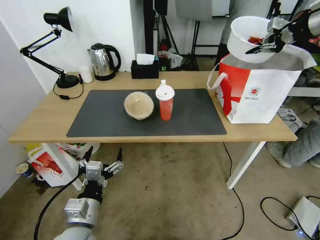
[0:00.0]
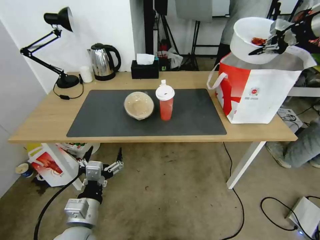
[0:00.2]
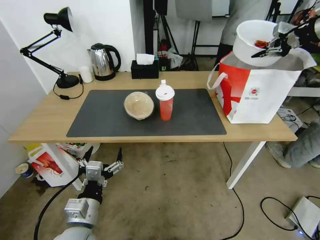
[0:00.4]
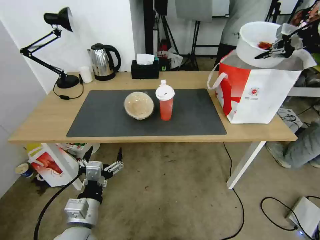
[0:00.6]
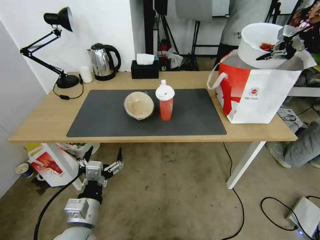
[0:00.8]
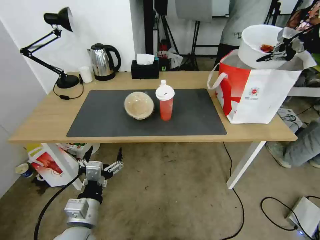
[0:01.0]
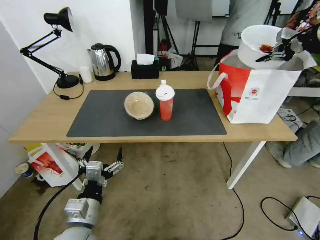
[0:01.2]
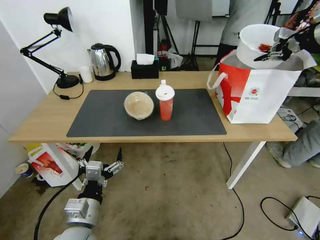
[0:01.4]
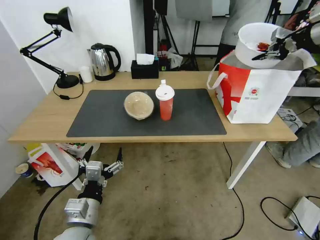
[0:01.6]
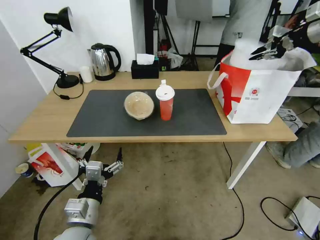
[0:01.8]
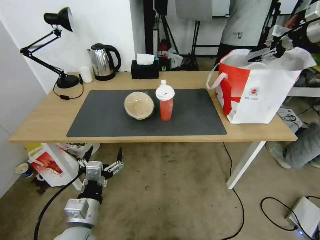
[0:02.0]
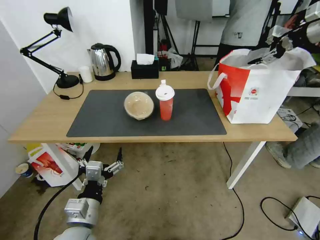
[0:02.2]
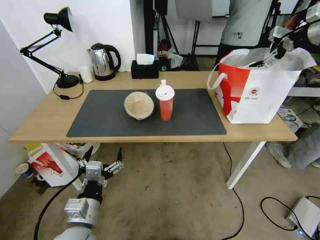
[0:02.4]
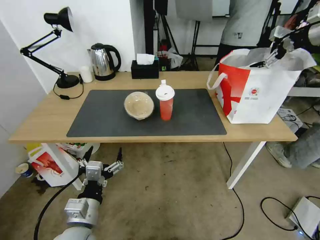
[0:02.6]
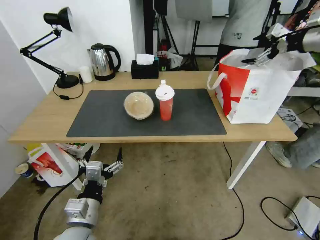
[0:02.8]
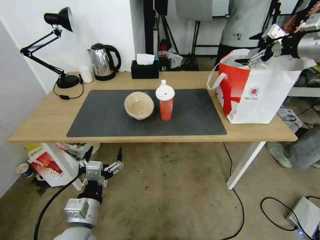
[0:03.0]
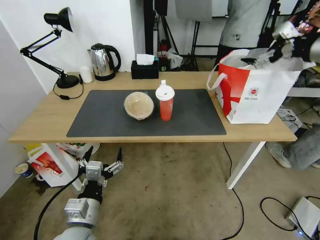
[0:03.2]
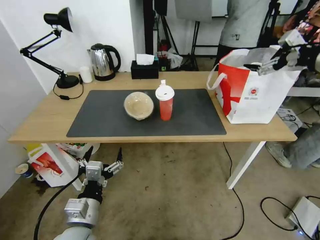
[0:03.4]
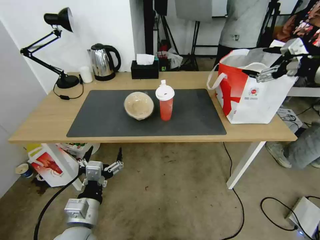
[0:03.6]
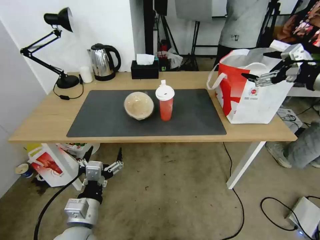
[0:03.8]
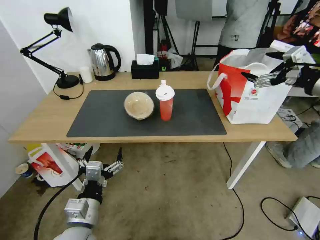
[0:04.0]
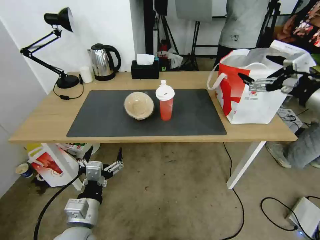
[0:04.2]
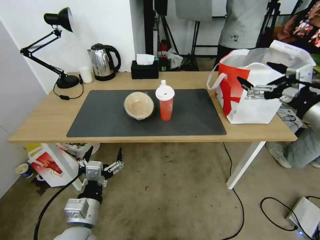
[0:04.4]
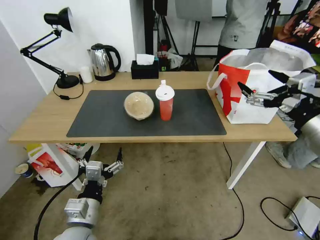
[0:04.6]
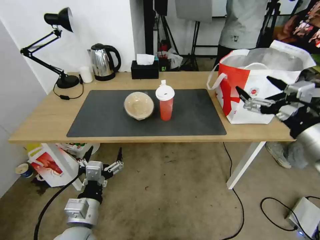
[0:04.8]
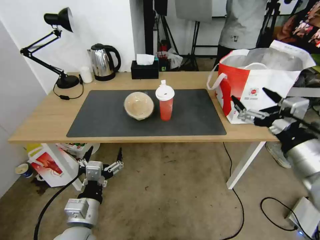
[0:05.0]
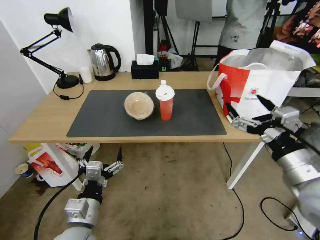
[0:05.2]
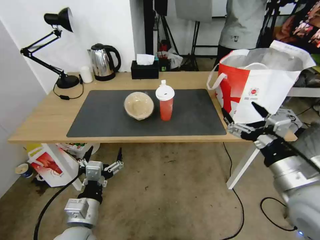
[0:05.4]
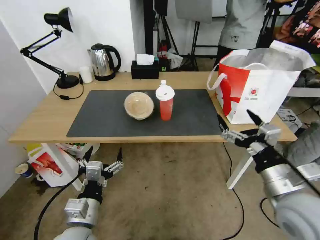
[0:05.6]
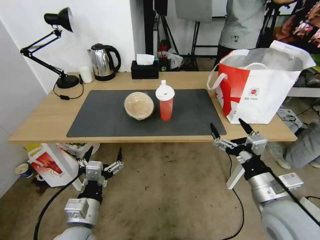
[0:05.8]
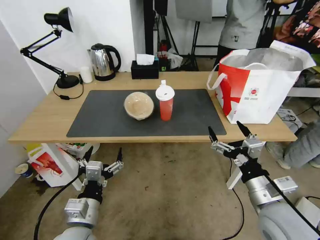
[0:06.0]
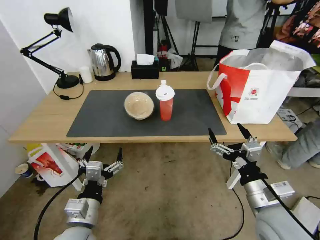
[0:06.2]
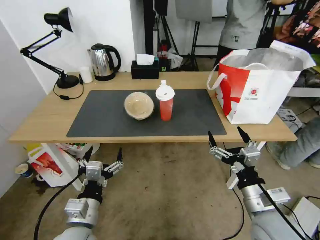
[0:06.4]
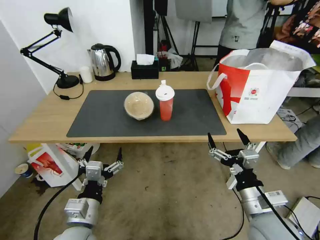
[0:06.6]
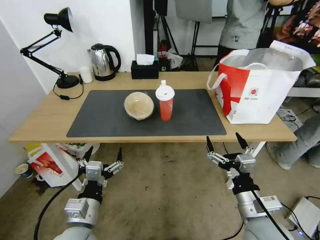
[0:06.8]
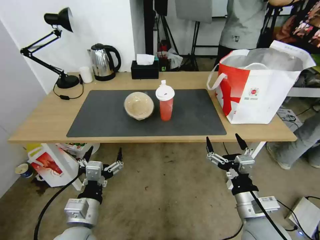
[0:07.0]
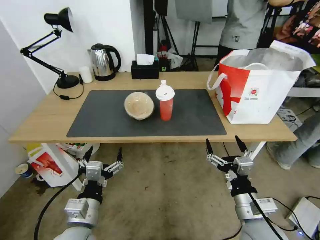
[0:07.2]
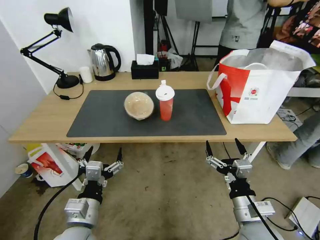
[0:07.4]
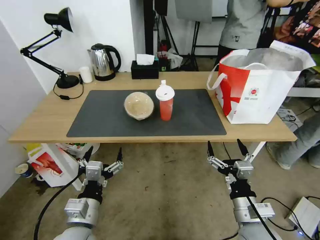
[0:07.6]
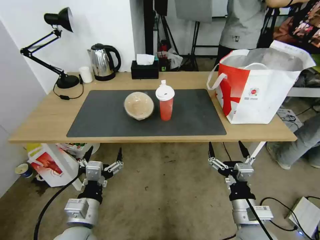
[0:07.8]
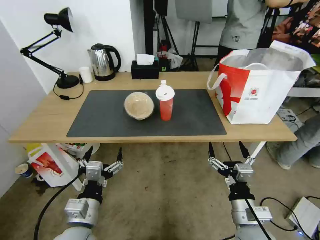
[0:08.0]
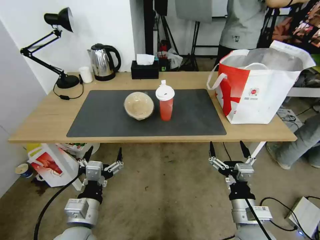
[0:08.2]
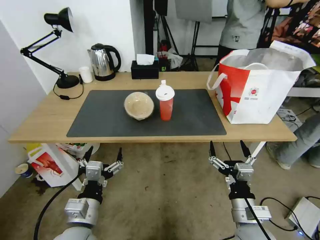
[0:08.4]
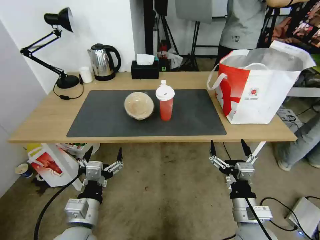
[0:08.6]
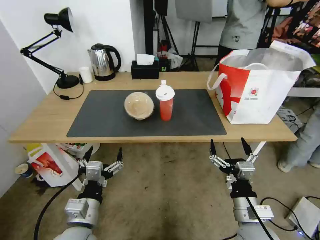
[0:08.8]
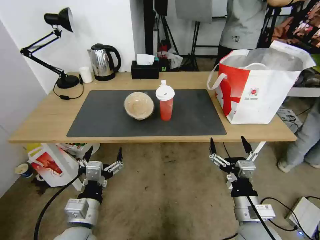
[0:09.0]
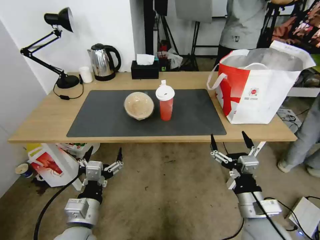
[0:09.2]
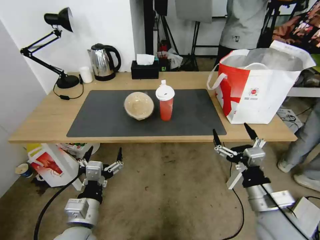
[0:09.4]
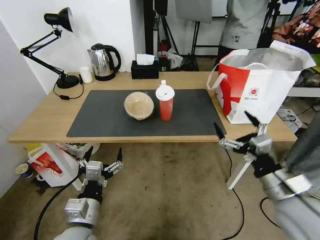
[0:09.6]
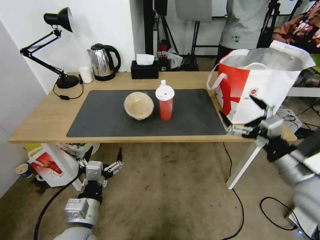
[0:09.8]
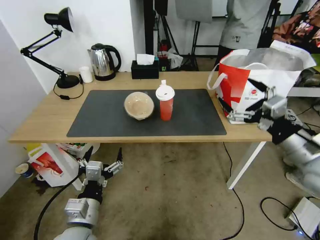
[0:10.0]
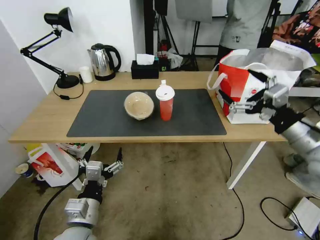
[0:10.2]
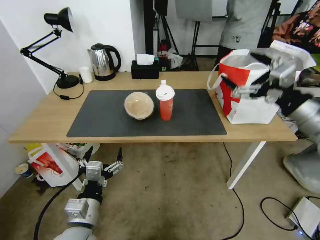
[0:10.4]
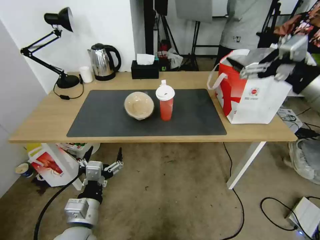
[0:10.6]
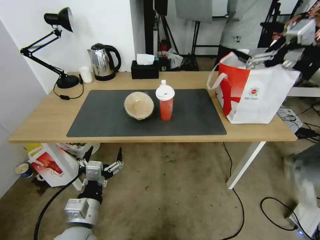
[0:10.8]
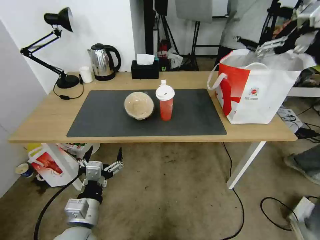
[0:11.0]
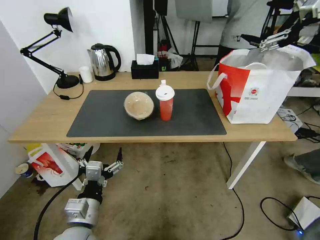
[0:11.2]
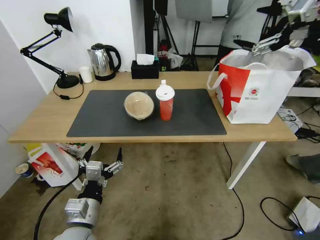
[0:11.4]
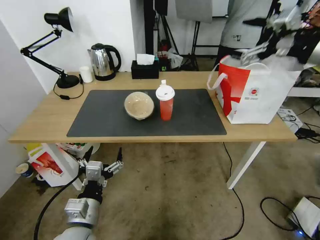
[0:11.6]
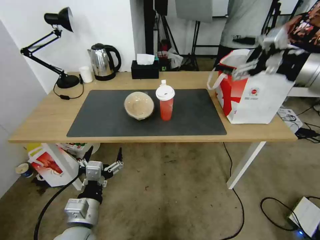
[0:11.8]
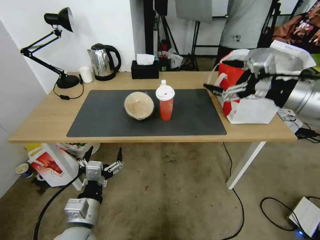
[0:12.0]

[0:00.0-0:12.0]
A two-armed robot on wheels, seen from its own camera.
Task of the whole recording: Pick up the trash from the table and place it into the takeout bag.
0:00.0 to 0:01.6: The grippers move only a little.
0:01.6 to 0:03.0: The right gripper shifts roughly 10 cm backward and to the left, and opens its fingers.
0:03.0 to 0:04.4: The right gripper travels backward and downward by approximately 25 cm.
0:04.4 to 0:06.0: The right gripper shifts about 25 cm downward, to the left and backward.
0:06.0 to 0:07.6: The right gripper goes approximately 5 cm downward.
0:07.6 to 0:09.0: Both grippers stay about where they are.
0:09.0 to 0:10.4: The right gripper shifts about 30 cm upward, to the right and forward.
0:10.4 to 0:12.0: The right gripper travels upward by approximately 5 cm.

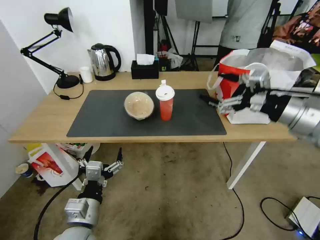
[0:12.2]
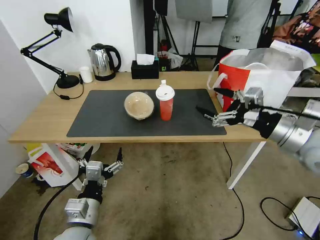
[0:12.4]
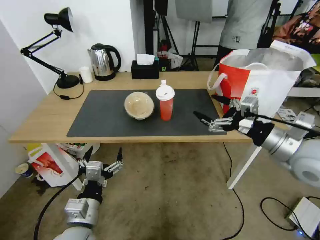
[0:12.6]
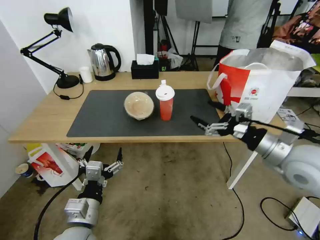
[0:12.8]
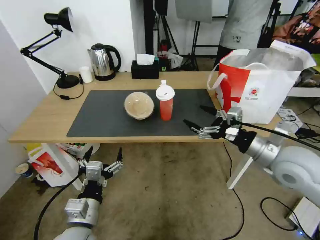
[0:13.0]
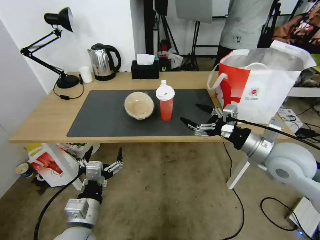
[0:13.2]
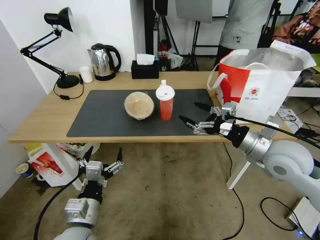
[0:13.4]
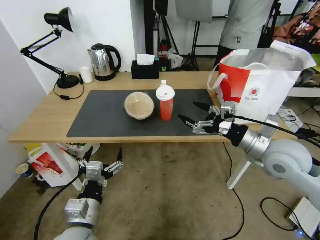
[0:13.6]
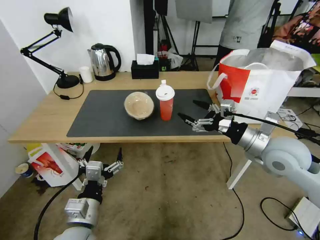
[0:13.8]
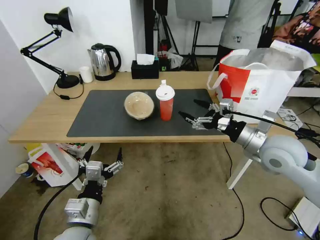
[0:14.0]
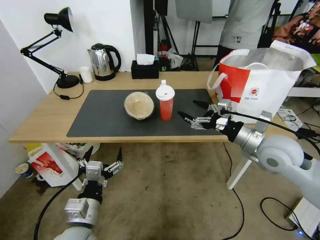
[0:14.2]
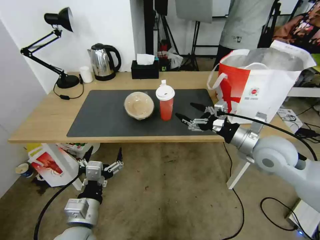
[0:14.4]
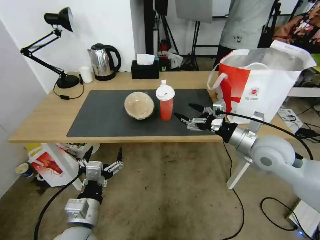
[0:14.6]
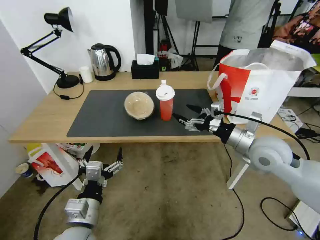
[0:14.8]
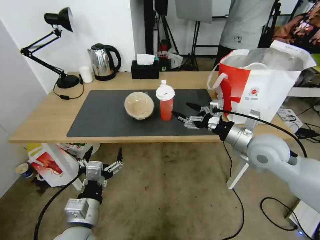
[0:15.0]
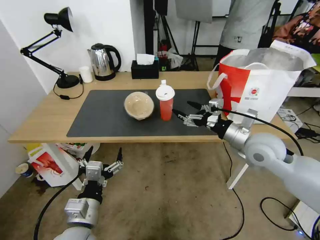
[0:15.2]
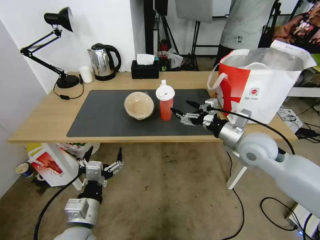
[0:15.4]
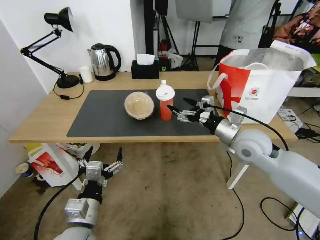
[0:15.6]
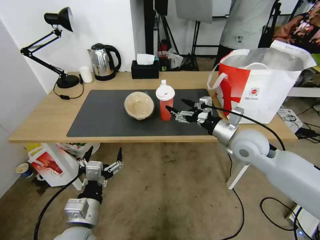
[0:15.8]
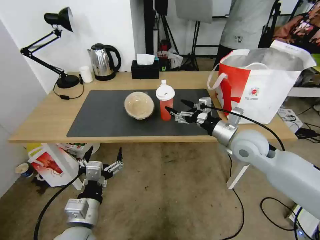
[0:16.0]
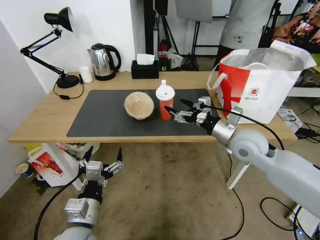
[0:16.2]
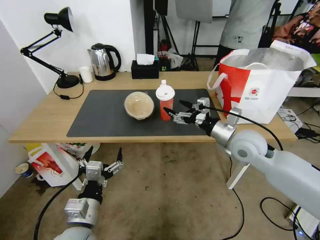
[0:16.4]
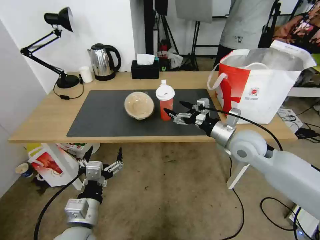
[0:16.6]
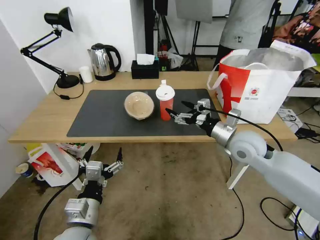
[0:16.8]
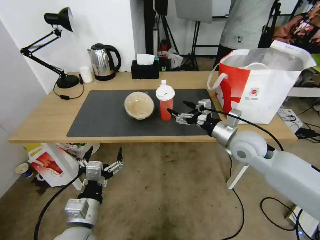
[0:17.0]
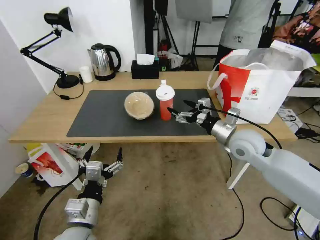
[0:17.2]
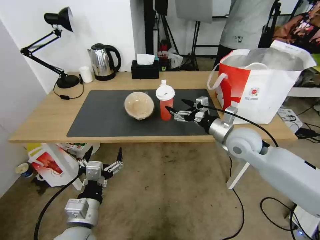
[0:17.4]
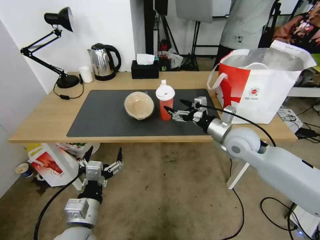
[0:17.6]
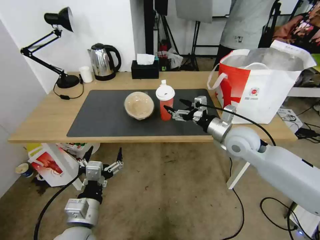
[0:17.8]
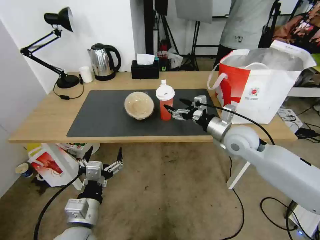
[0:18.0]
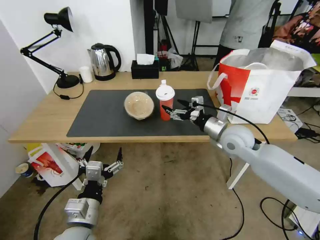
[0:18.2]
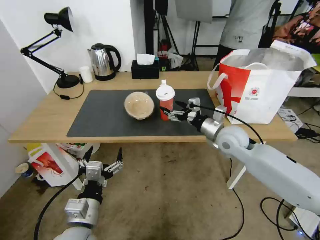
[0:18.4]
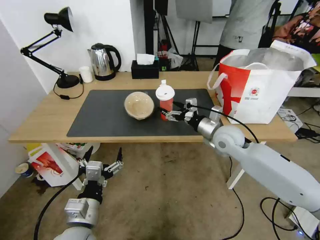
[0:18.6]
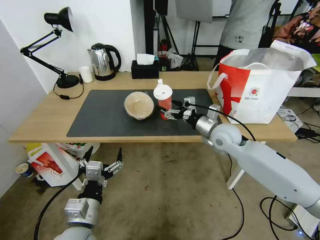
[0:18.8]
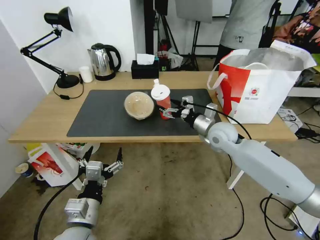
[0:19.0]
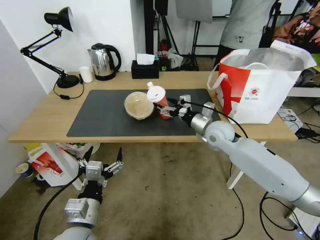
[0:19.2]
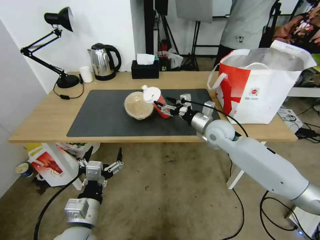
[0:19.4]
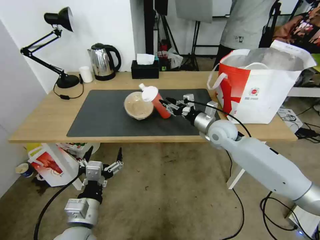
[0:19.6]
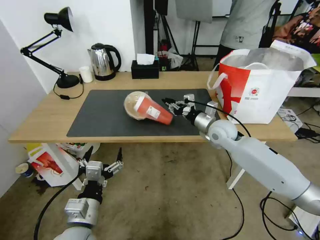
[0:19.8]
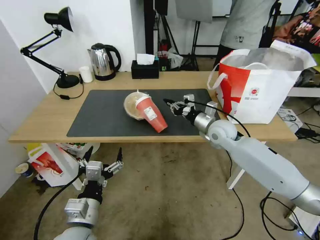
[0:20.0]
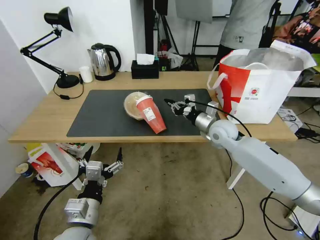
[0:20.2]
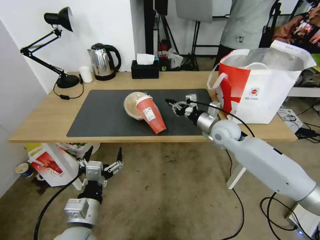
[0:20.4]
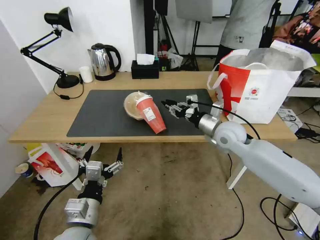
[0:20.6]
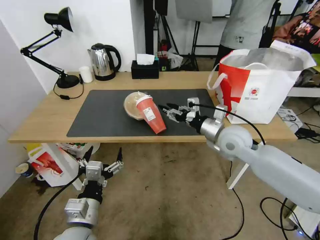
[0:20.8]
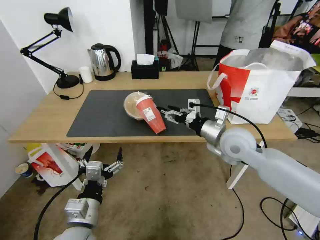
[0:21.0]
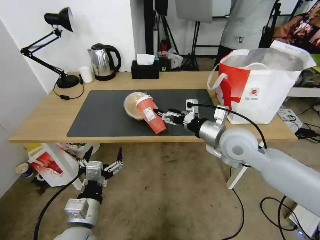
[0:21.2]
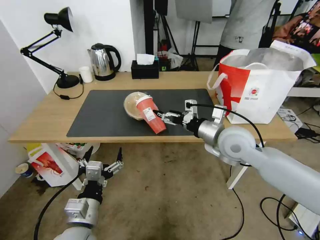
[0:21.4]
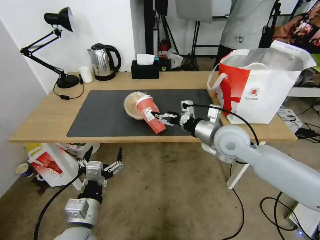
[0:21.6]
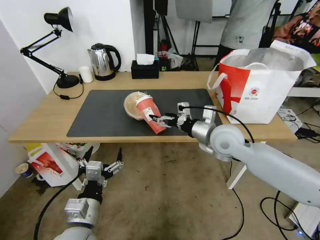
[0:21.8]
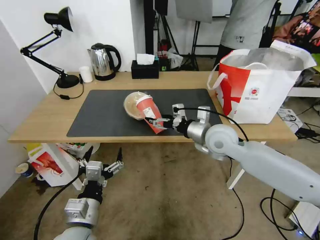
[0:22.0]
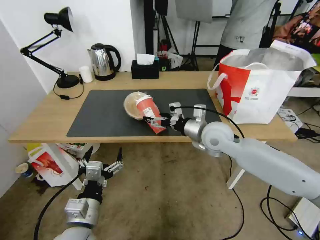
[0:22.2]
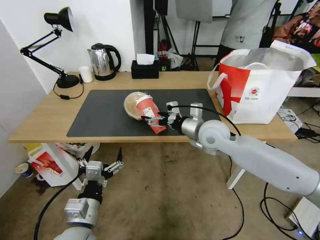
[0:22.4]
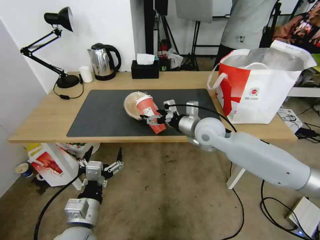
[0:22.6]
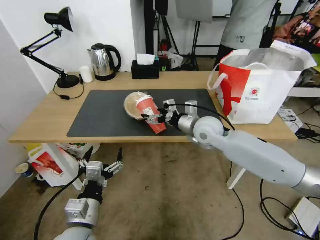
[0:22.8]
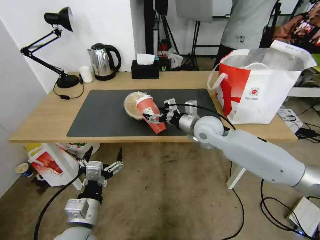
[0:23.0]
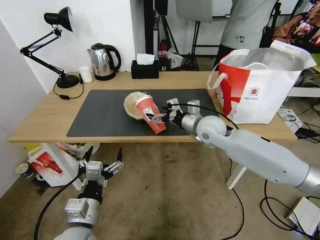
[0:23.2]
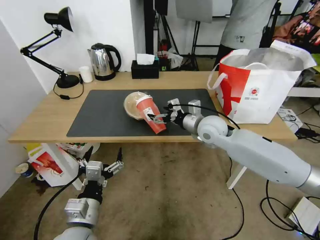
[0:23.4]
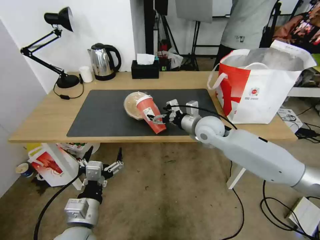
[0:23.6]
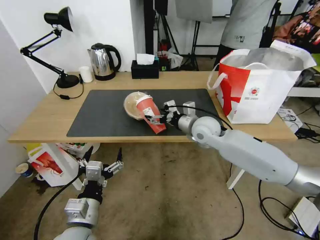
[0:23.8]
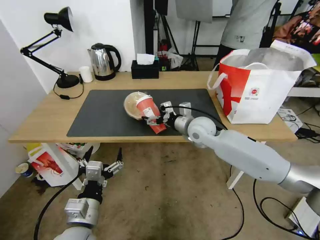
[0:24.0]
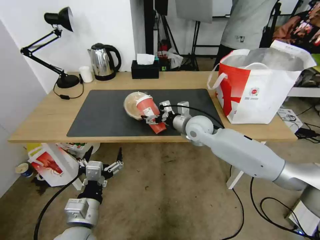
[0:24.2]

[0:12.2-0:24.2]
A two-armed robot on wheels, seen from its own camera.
Task of the whole recording: Pick up the trash from the table and place it into the takeout bag.
0:12.2 to 0:13.8: The right gripper is displaced downward by roughly 10 cm.
0:13.8 to 0:15.2: The right gripper changes place by approximately 5 cm.
0:15.2 to 0:16.6: There are only small adjustments of the grippers.
0:16.6 to 0:18.2: There are only small adjustments of the grippers.
0:18.2 to 0:19.8: The right gripper travels forward by roughly 5 cm, and closes.
0:19.8 to 0:21.2: The right gripper shifts some 15 cm backward and upward, and opens up.
0:21.2 to 0:22.6: The right gripper travels forward by some 5 cm.
0:22.6 to 0:24.2: The right gripper moves some 5 cm.
